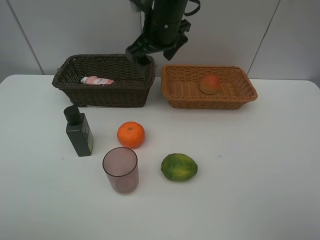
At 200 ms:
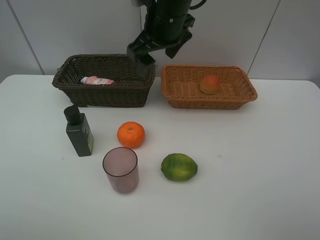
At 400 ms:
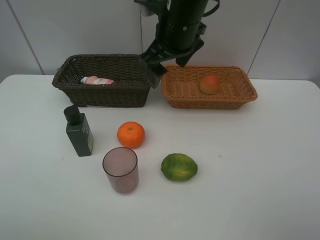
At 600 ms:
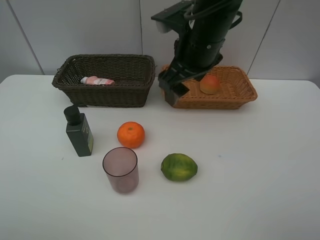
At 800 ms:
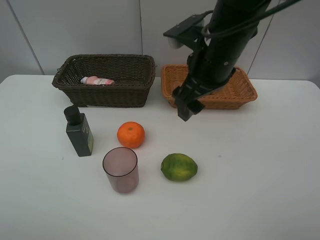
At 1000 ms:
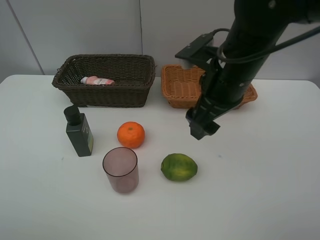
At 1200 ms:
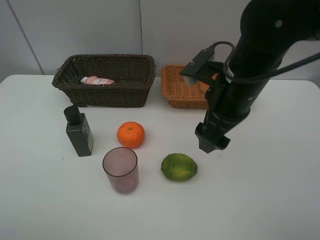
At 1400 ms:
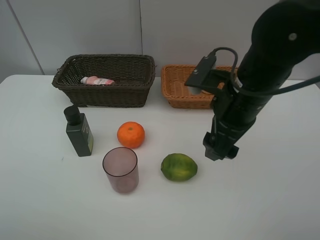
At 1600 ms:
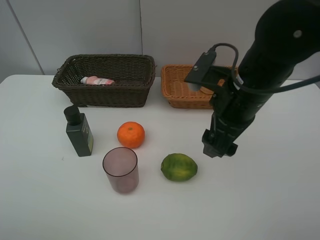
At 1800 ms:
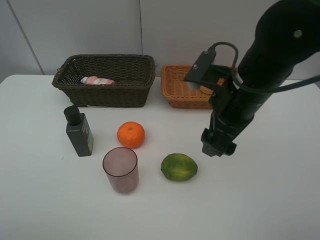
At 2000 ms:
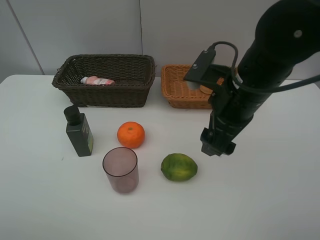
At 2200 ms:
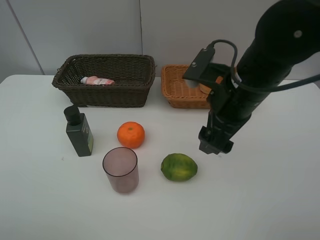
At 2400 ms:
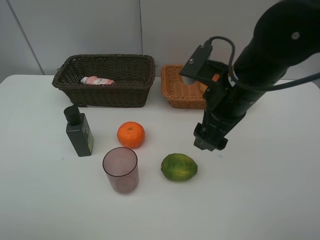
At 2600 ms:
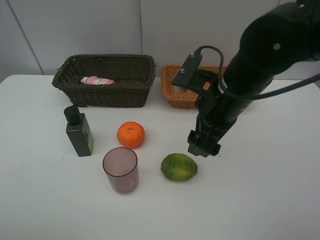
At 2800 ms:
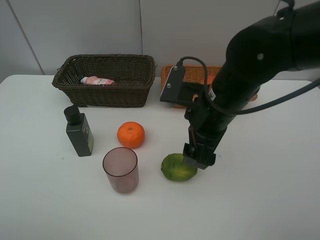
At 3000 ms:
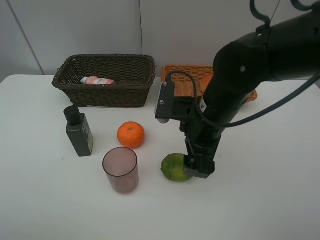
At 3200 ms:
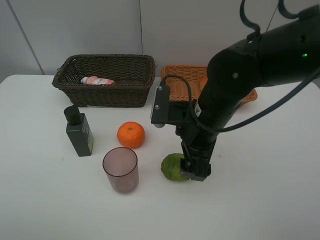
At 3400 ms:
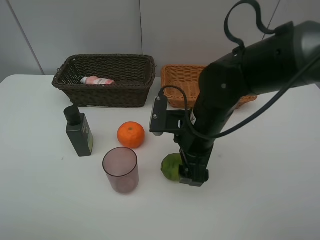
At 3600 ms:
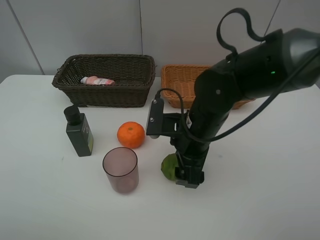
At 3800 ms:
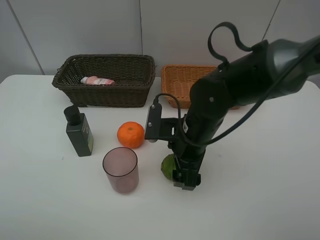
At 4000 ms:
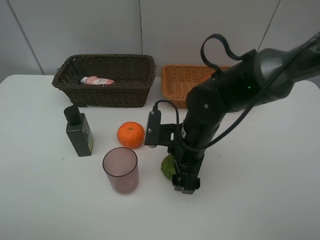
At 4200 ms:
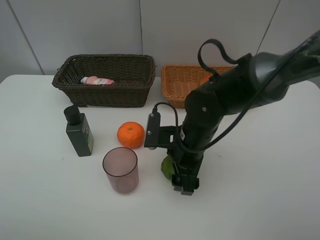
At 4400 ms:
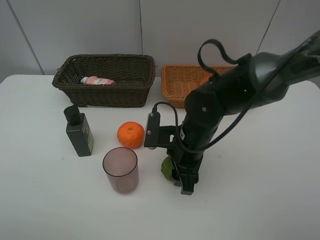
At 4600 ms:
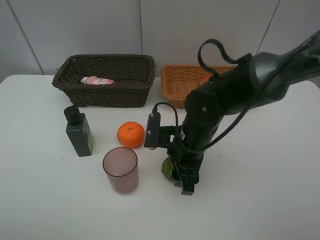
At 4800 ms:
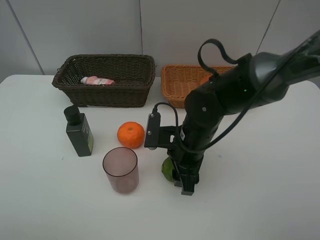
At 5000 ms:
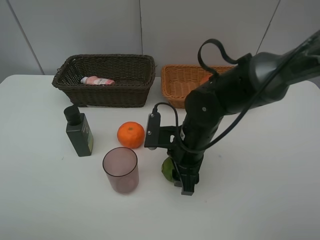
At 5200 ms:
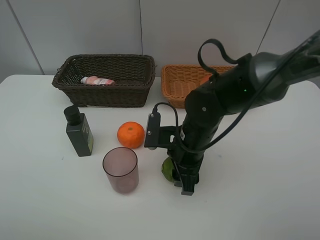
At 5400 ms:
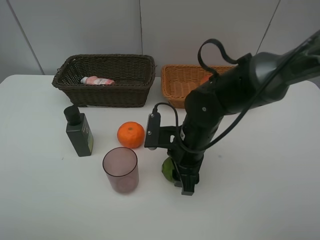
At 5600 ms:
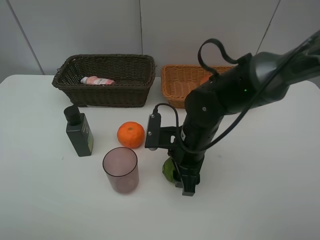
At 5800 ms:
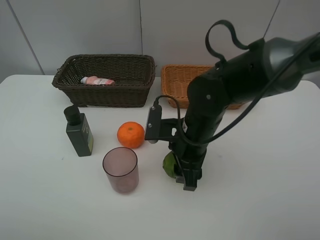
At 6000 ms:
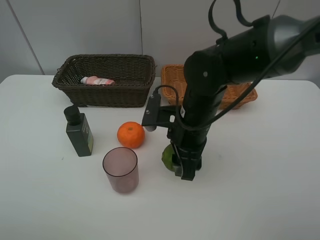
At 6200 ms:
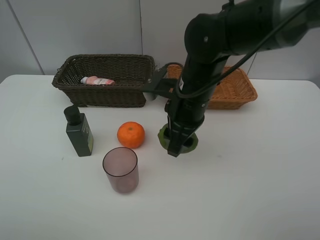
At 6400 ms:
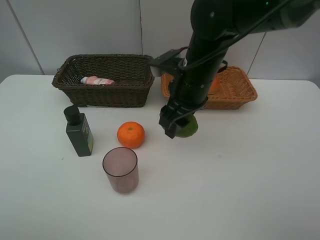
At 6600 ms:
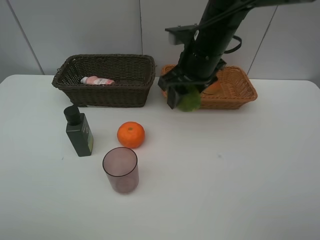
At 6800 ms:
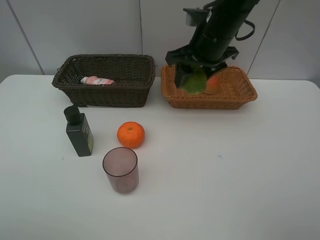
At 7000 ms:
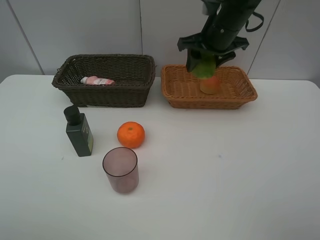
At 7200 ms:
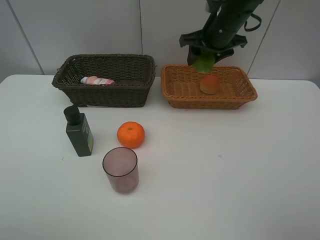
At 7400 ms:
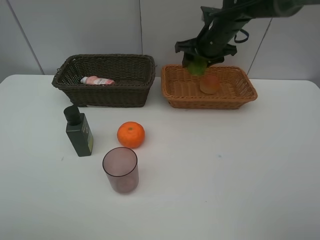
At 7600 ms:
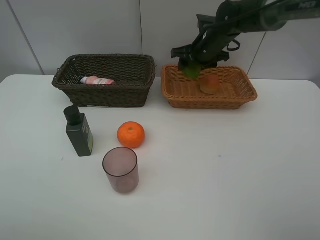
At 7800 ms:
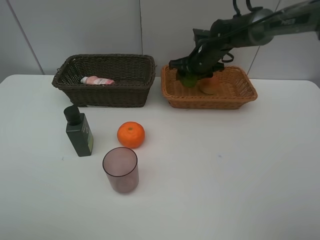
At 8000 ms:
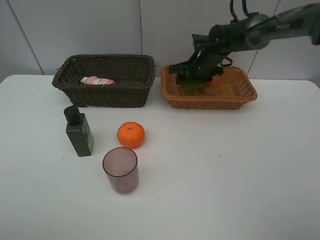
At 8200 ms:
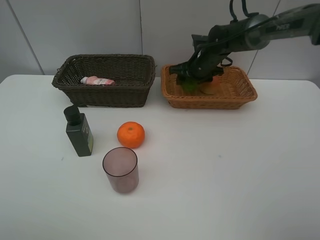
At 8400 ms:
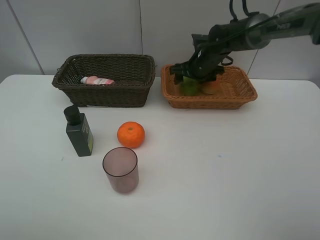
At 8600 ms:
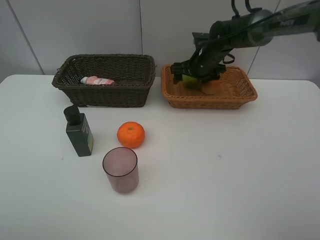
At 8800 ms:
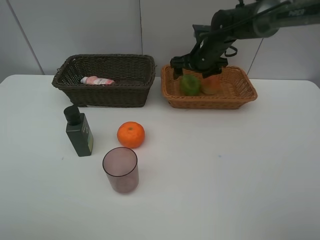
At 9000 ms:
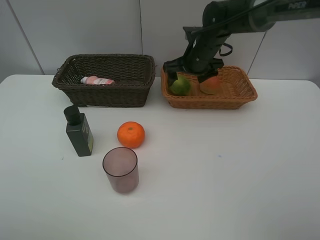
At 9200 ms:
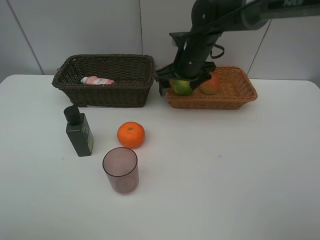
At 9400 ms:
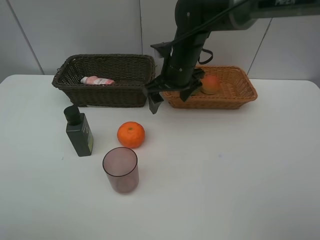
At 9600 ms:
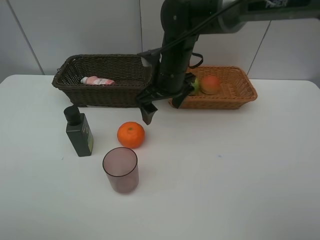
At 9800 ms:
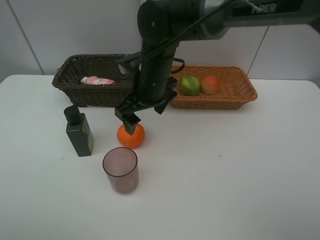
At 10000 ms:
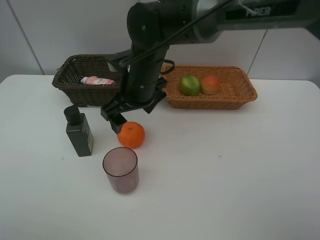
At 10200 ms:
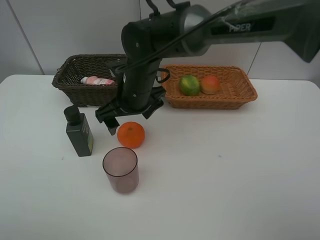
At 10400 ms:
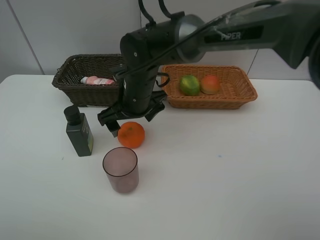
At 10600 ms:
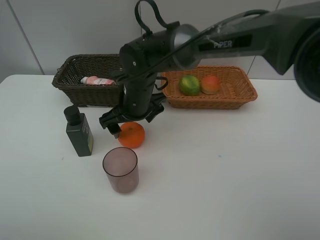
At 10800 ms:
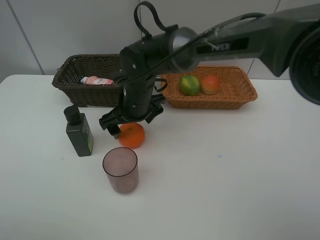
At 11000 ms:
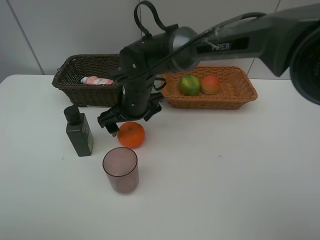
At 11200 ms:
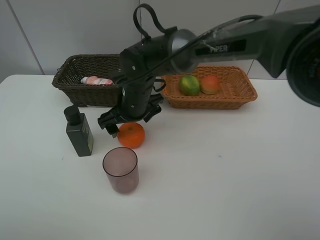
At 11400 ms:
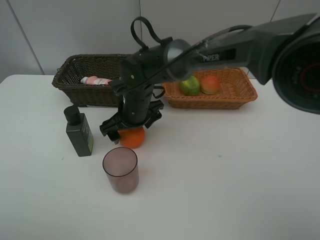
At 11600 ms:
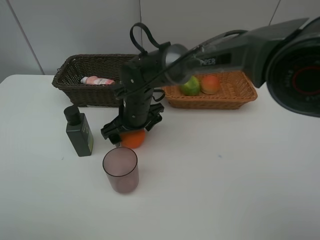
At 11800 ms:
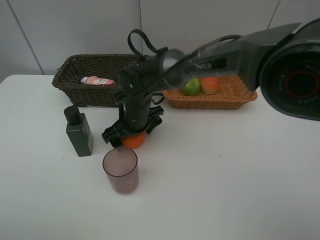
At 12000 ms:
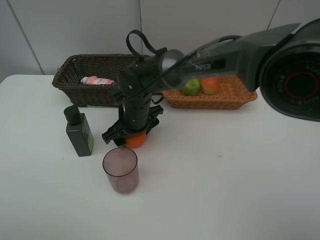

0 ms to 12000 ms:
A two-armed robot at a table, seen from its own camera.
Task of the whole recording: place multiple objects separately in different baskets.
0 ms to 1600 ms: The right gripper shifts approximately 20 cm backward and to the right.
1600 ms to 3000 ms: The right gripper shifts by approximately 5 cm.
3000 ms to 4400 ms: The right gripper is displaced downward by approximately 5 cm, and closes its fingers.
4400 ms to 6000 ms: The grippers make only small movements.
6000 ms to 7600 ms: The right gripper shifts roughly 20 cm forward.
7600 ms to 9000 ms: The right gripper opens up.
9000 ms to 10400 ms: The right gripper is displaced to the left and backward by approximately 20 cm.
10400 ms to 12000 ms: The right gripper moves downward, some 5 cm.

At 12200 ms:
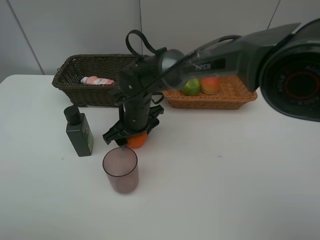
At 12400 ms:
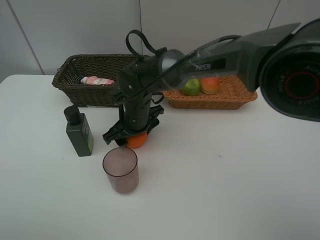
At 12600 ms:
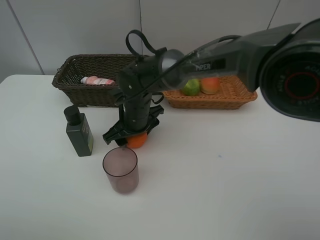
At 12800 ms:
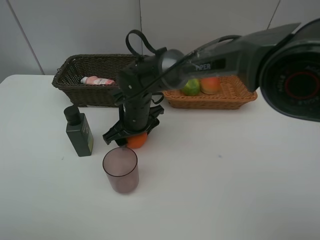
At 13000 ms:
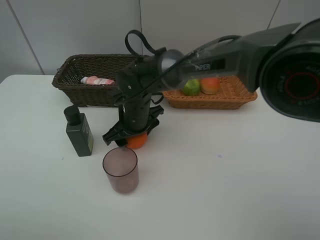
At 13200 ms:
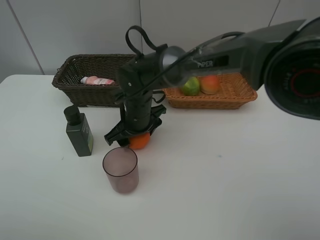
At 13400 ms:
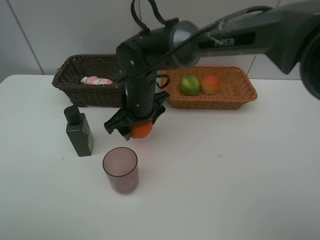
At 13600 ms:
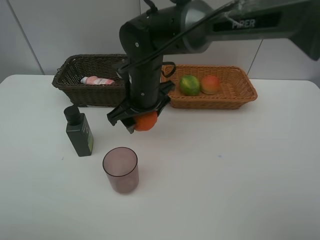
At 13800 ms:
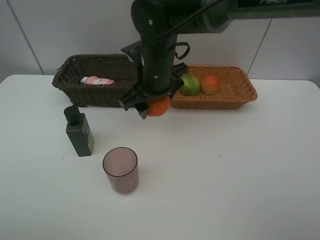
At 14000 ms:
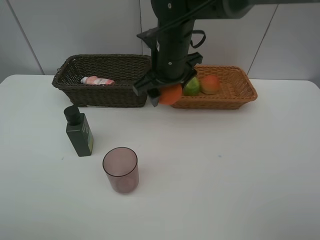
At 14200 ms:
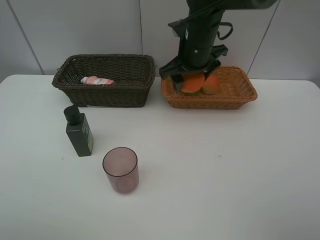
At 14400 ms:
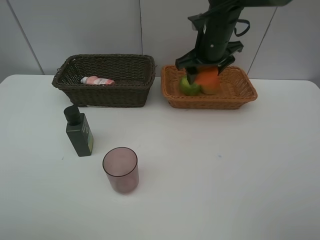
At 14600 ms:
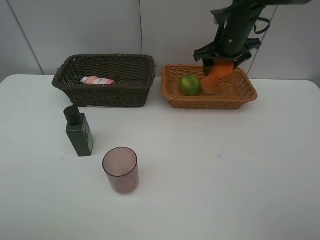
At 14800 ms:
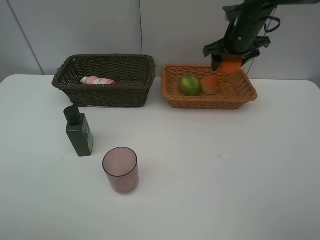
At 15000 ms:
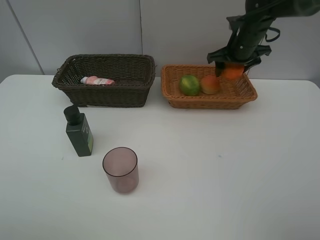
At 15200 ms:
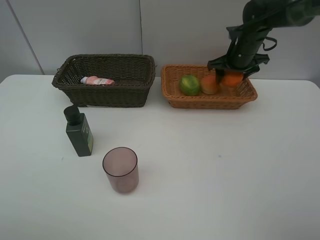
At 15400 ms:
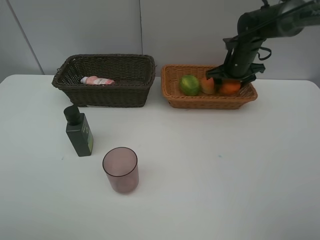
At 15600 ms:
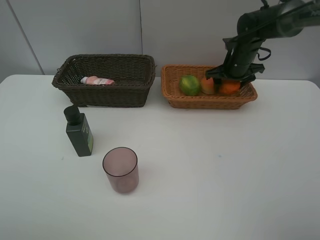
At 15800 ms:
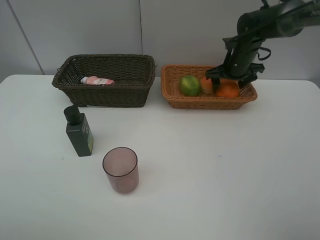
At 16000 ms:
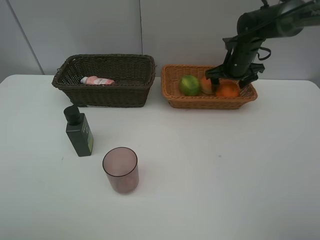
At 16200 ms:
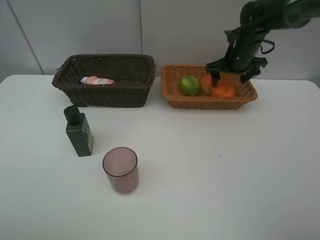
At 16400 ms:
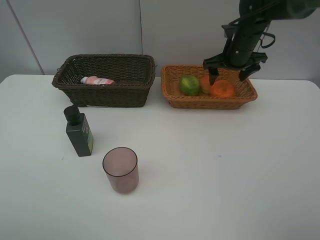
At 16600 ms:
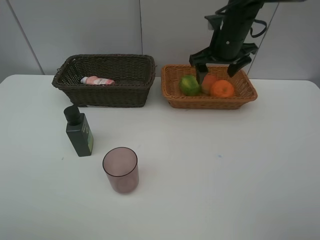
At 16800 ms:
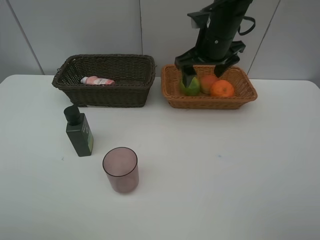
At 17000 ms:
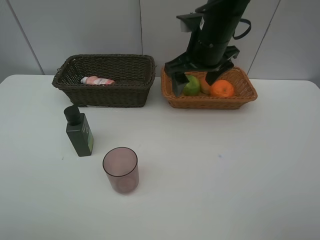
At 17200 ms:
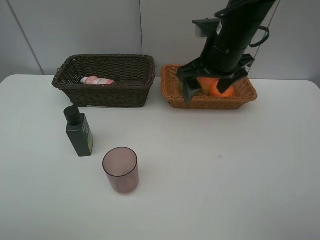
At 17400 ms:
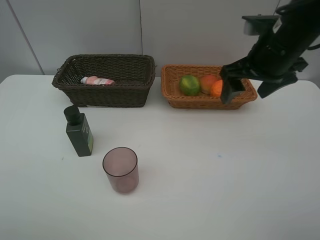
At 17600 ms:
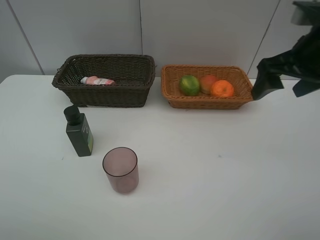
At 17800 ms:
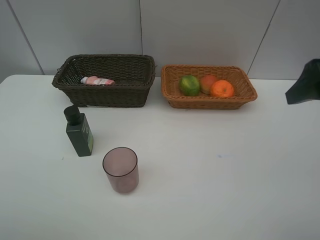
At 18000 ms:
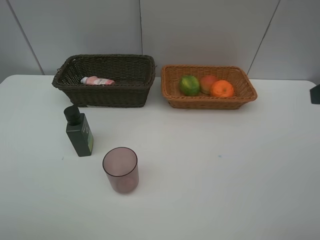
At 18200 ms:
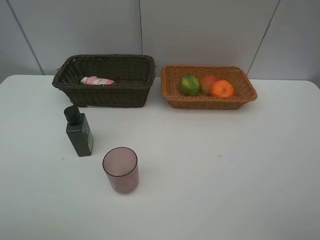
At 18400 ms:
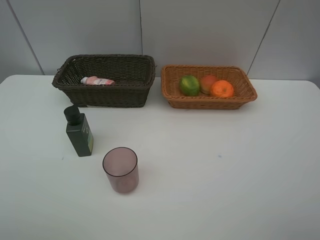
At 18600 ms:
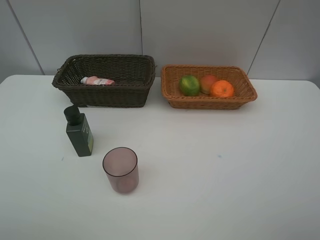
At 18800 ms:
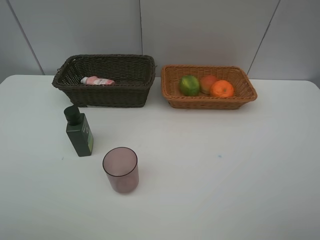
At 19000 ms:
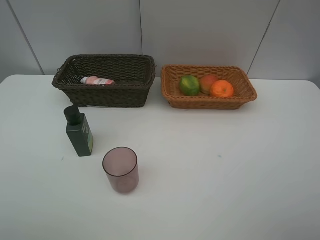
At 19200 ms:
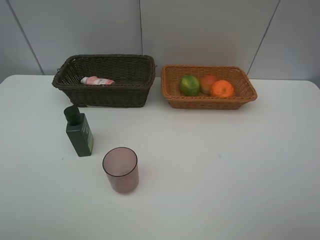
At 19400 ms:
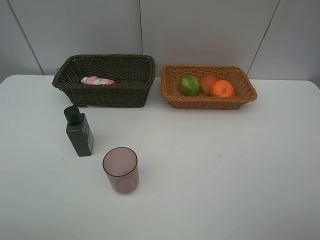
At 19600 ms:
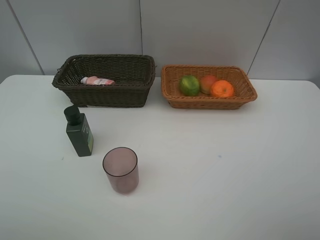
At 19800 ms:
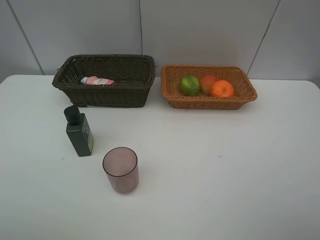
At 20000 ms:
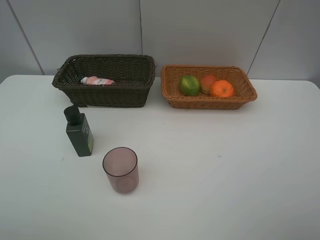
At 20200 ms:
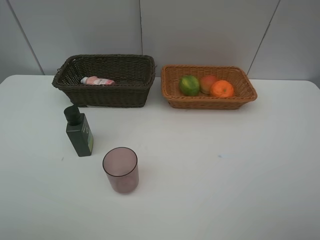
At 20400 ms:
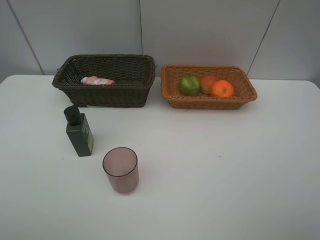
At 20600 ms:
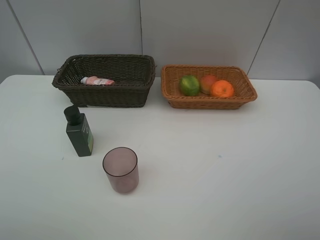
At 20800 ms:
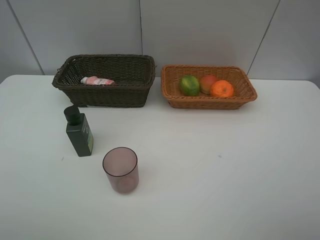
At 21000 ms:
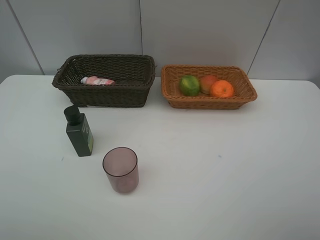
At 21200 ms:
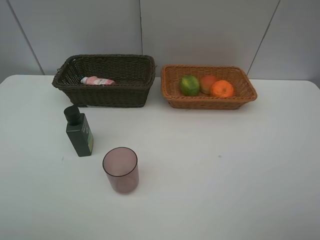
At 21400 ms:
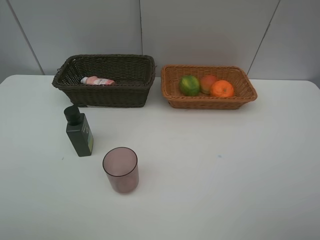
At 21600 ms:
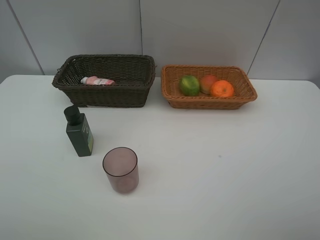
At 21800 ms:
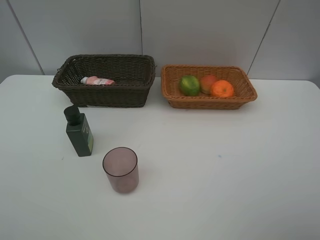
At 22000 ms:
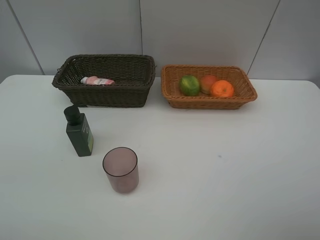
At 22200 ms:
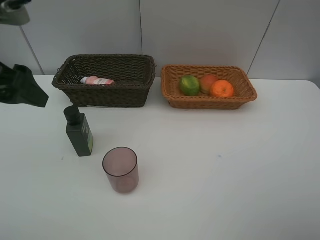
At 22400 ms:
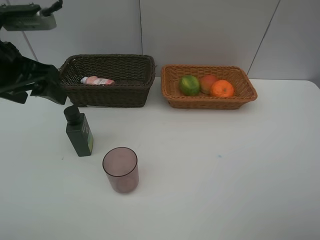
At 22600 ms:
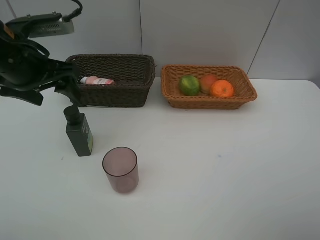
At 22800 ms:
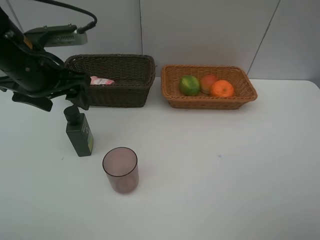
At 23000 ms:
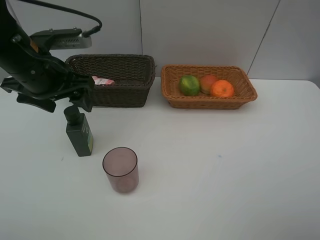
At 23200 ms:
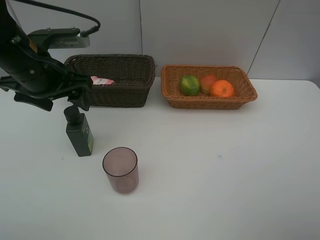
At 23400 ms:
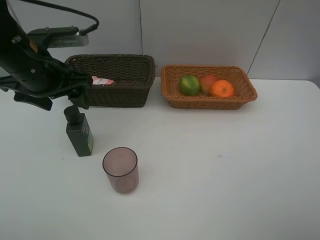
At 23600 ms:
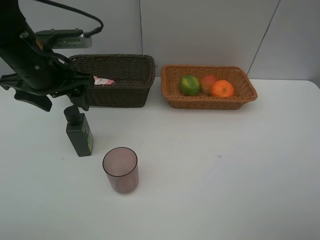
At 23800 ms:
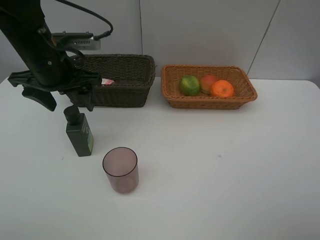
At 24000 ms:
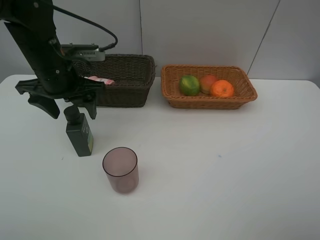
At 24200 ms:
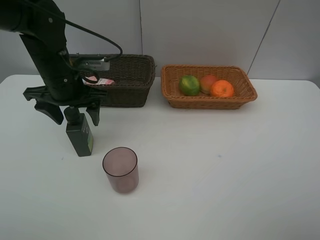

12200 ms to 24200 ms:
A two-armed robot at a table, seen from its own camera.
Task of the whole recording: place multiple objects separately in different baskets.
12200 ms to 13800 ms: The right gripper is displaced upward by some 10 cm.
13800 ms to 15200 ms: The right gripper shifts roughly 25 cm to the right and forward.
15200 ms to 16600 ms: The right gripper travels to the left, backward and upward by some 10 cm.
16600 ms to 18200 ms: The right gripper travels backward and to the right by about 40 cm.
19800 ms to 21200 ms: Both grippers stay about where they are.
21200 ms to 22600 ms: The left gripper heads forward, covering roughly 30 cm.
22600 ms to 24200 ms: The left gripper heads downward, covering about 5 cm.
